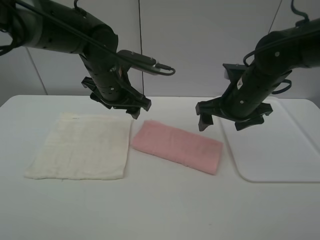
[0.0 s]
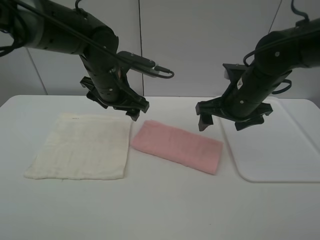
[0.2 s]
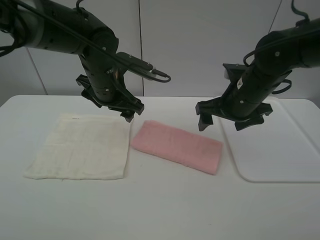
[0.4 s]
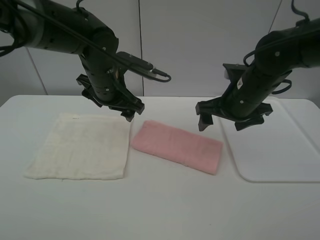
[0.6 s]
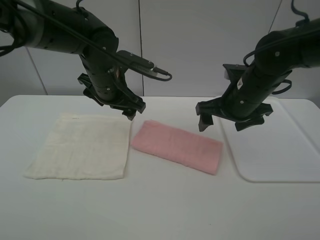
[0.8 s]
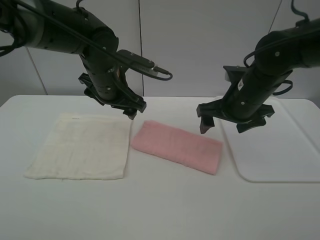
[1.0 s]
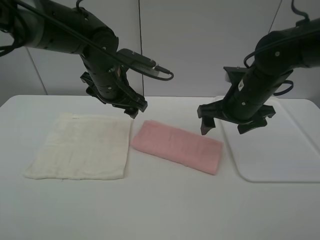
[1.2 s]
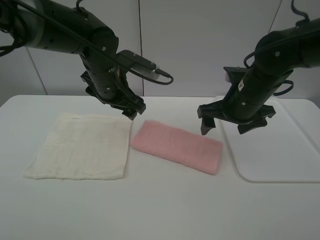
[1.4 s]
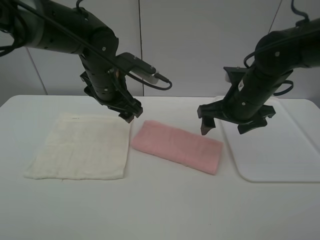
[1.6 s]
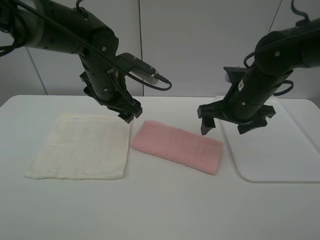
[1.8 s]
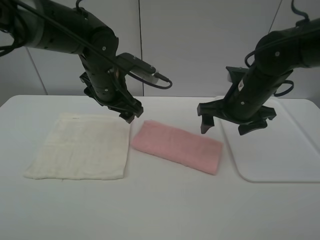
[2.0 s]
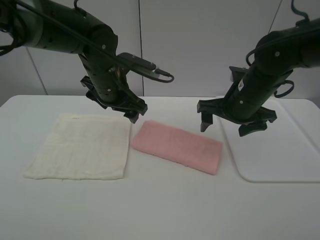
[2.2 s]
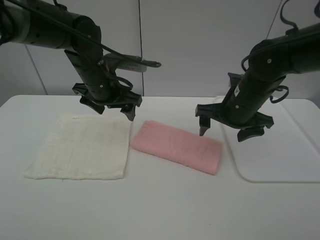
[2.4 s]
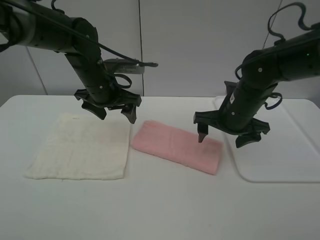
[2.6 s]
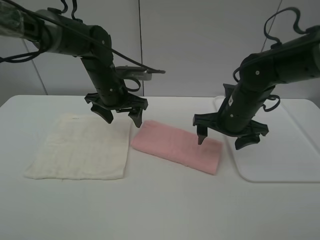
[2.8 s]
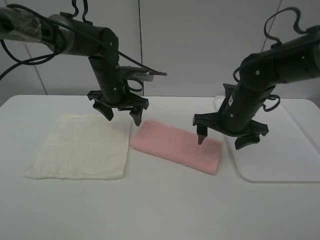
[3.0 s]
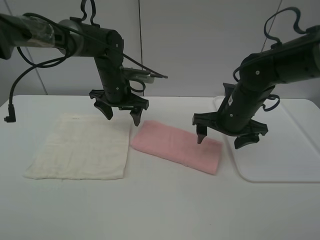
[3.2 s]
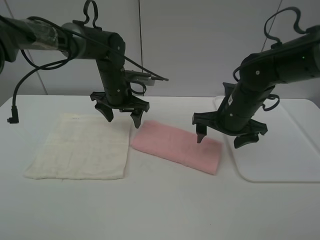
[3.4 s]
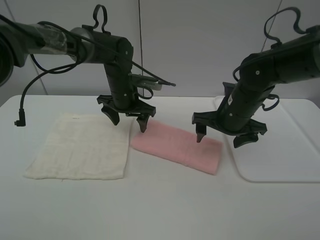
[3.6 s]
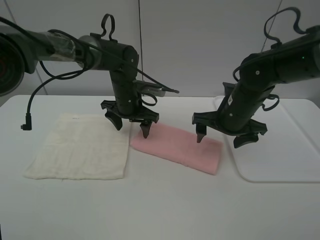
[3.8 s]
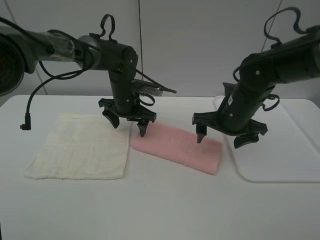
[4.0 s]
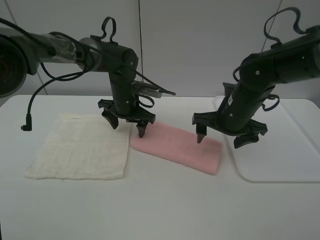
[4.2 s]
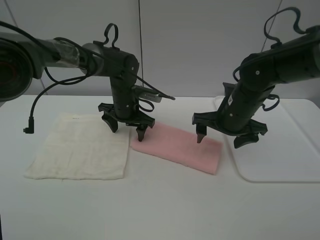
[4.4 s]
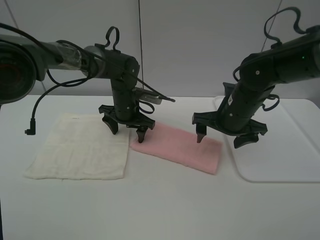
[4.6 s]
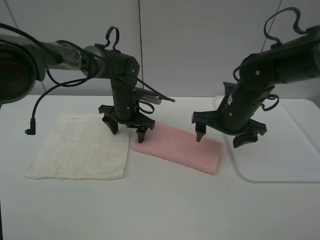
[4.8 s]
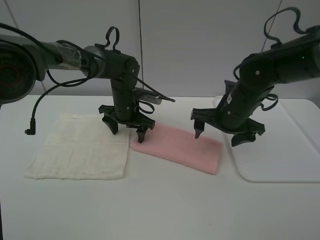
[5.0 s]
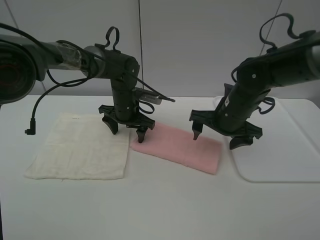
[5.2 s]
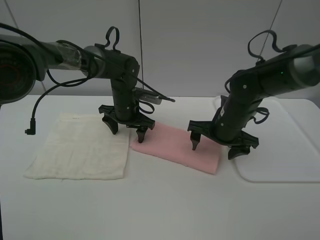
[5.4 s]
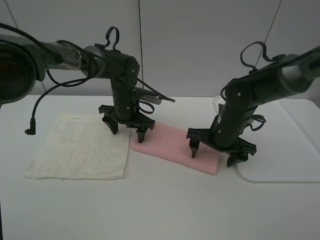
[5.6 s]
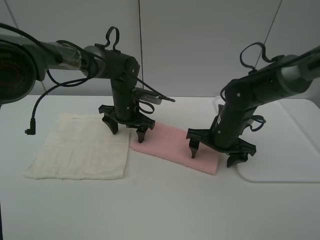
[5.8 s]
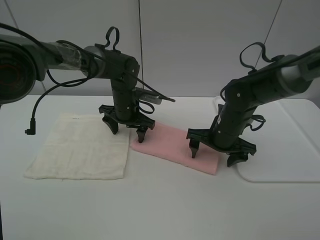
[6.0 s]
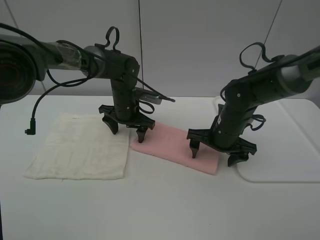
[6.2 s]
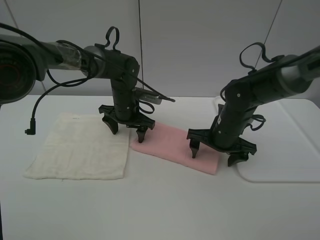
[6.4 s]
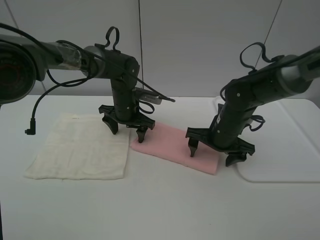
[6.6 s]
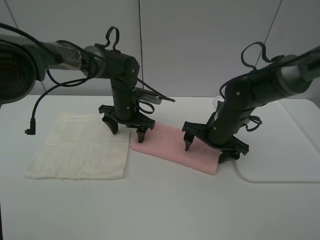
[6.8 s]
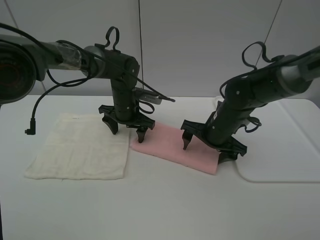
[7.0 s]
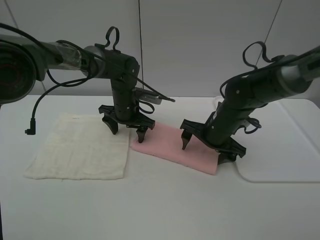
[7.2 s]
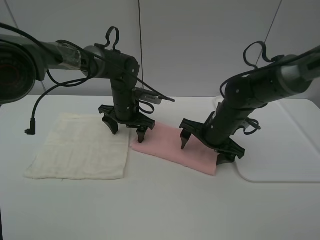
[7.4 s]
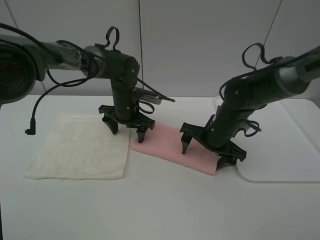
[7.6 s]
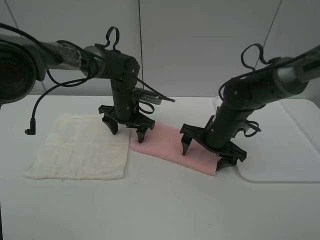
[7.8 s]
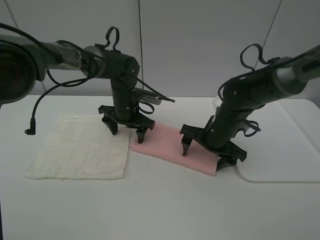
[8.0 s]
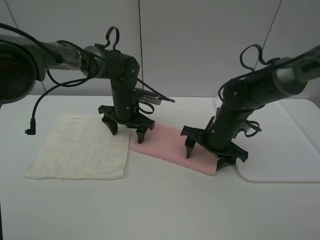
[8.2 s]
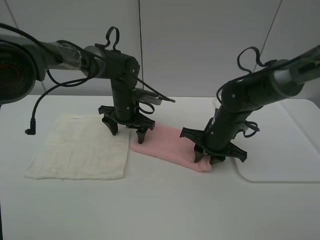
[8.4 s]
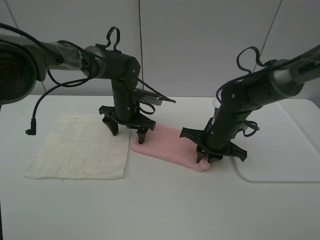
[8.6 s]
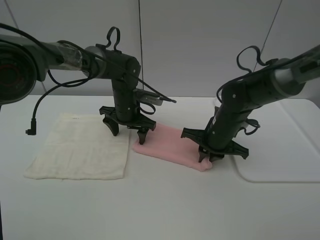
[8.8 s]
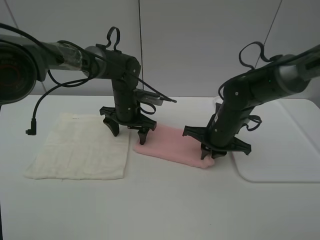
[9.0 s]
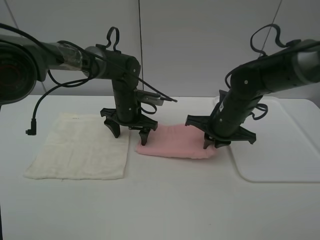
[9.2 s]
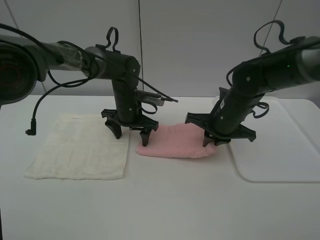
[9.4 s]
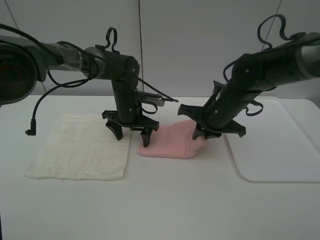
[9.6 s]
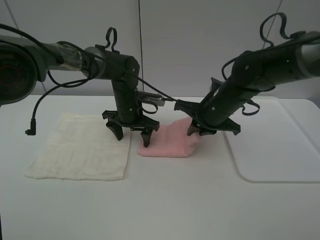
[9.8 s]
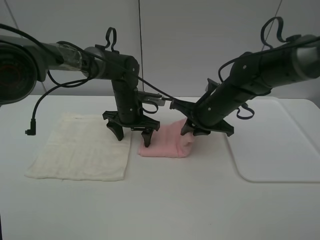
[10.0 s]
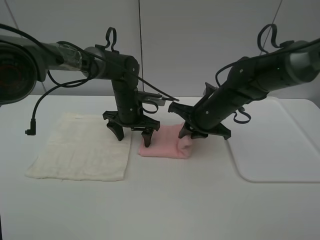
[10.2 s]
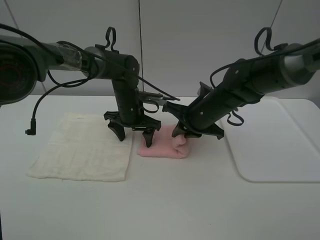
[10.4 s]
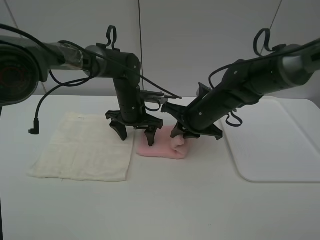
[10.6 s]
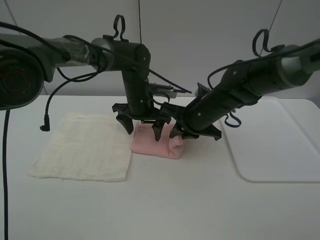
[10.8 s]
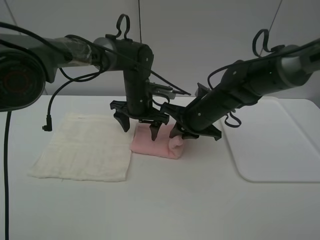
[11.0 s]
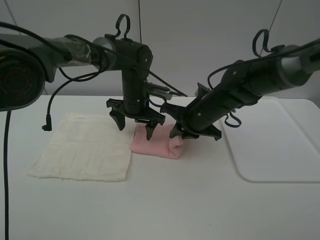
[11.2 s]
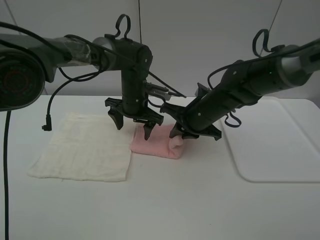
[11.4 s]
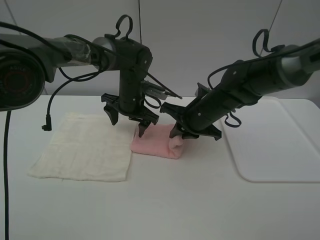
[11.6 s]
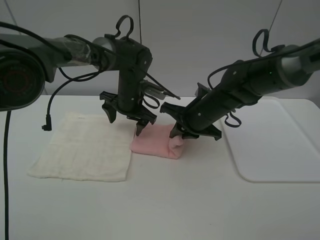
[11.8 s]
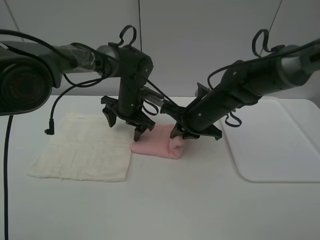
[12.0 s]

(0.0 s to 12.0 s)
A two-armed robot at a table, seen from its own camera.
Task of the whole recording: fold one of the towels by two grippers and place it on the tray,then fold another towel by two grippers and place it on the folded towel.
Step, 0.0 s - 4.8 s: Press the pink towel with the left gripper.
Step, 5.0 s - 8.8 s: Grasp the pink towel with the right gripper.
0.0 s - 1.6 s: There are only small adjustments of the grippers.
1.6 s - 3.0 s: The left gripper moves forward, some 5 cm.
3.0 s - 4.4 s: The left gripper goes approximately 5 cm downward.
4.4 s - 6.0 s: The right gripper goes about 5 cm downward.
6.0 s - 7.6 s: The grippers stay close to where they were, moving slightly.
7.6 s - 9.0 s: The right gripper closes its fingers.
9.0 s - 10.4 s: The right gripper ends up roughly 5 cm from where it was.
10.4 s - 12.0 s: The grippers stay close to where they were, moving slightly.

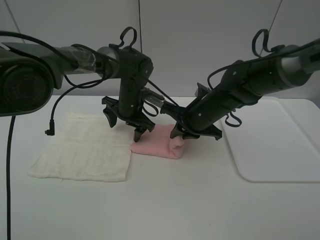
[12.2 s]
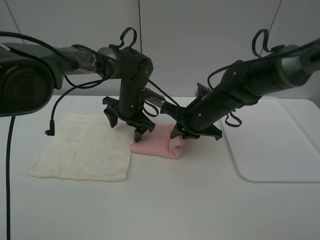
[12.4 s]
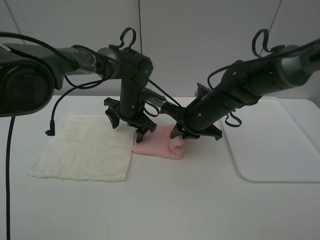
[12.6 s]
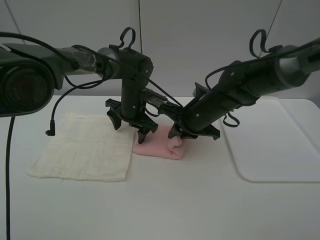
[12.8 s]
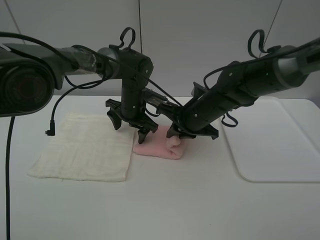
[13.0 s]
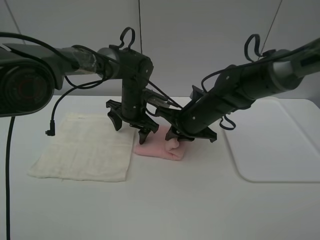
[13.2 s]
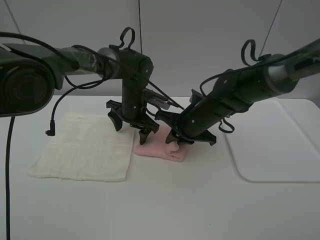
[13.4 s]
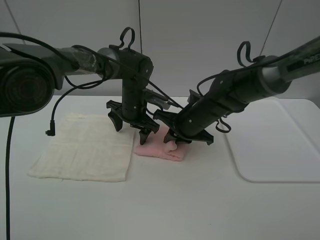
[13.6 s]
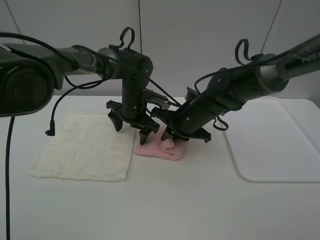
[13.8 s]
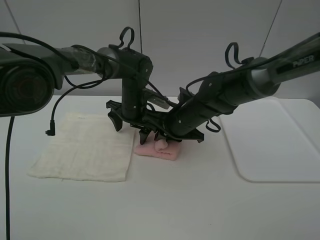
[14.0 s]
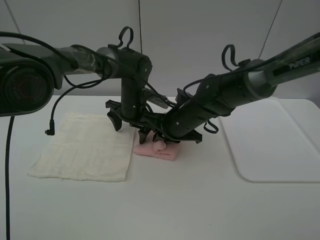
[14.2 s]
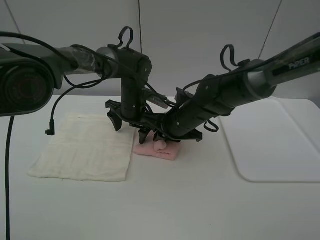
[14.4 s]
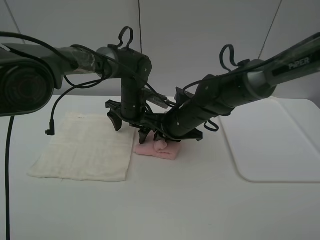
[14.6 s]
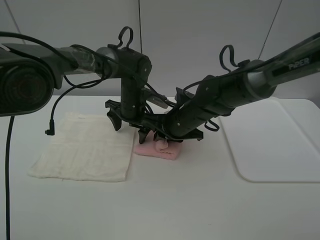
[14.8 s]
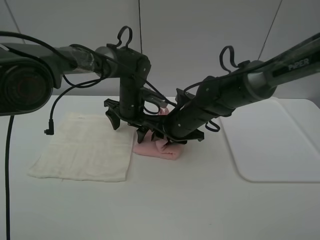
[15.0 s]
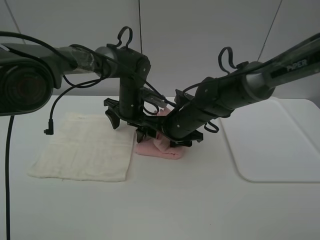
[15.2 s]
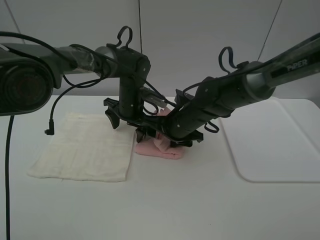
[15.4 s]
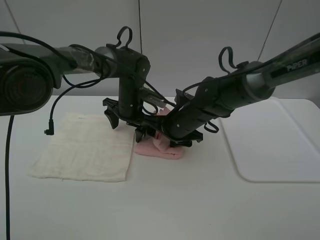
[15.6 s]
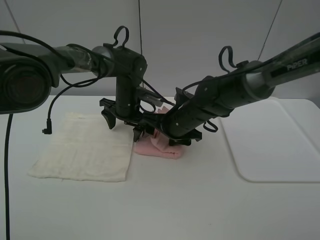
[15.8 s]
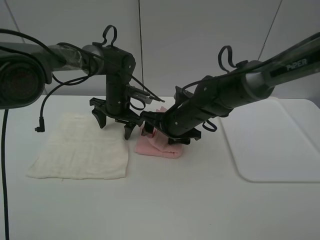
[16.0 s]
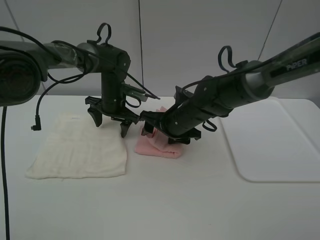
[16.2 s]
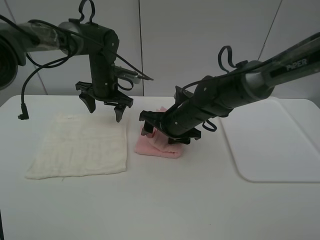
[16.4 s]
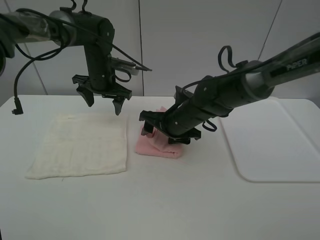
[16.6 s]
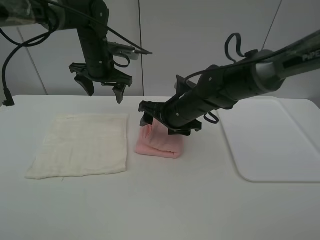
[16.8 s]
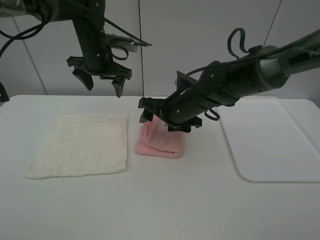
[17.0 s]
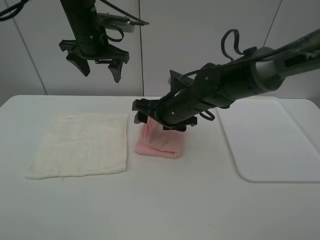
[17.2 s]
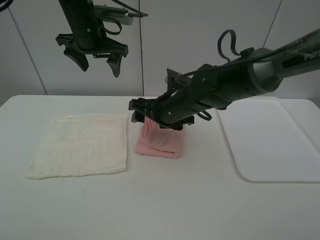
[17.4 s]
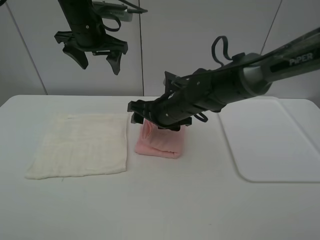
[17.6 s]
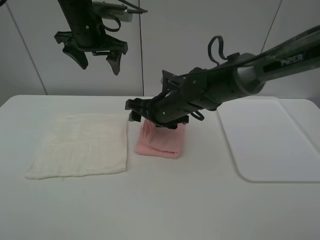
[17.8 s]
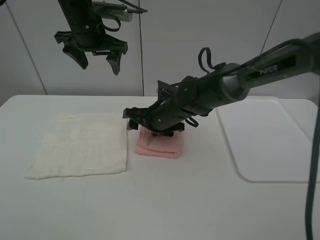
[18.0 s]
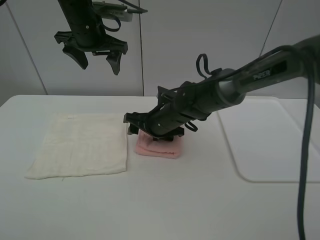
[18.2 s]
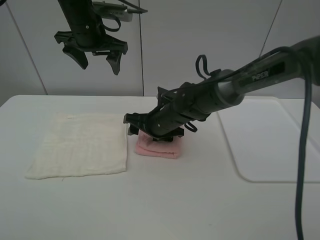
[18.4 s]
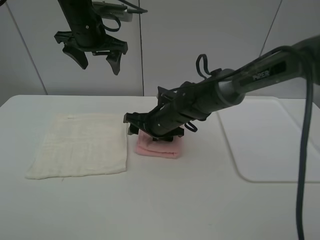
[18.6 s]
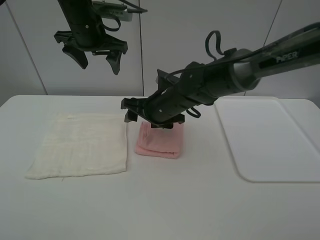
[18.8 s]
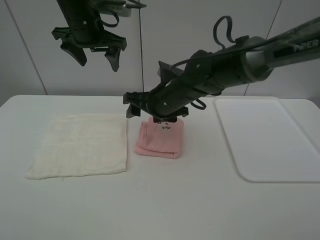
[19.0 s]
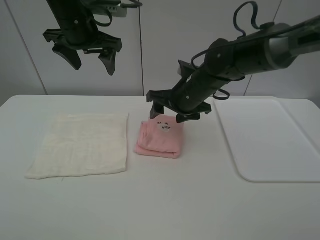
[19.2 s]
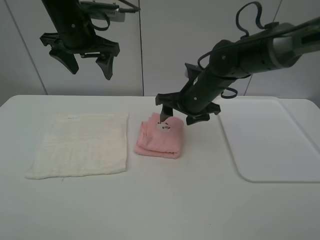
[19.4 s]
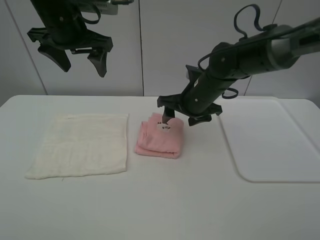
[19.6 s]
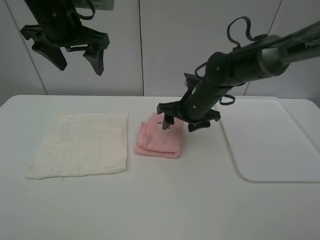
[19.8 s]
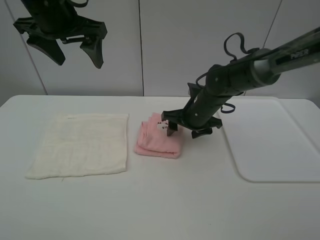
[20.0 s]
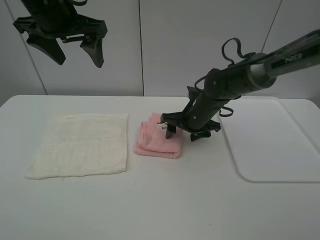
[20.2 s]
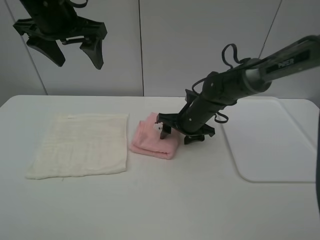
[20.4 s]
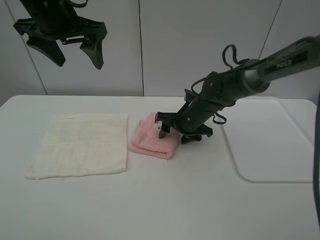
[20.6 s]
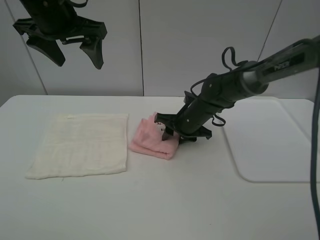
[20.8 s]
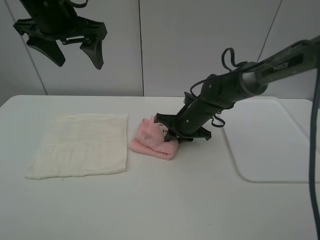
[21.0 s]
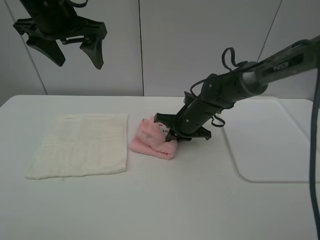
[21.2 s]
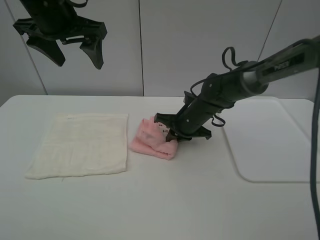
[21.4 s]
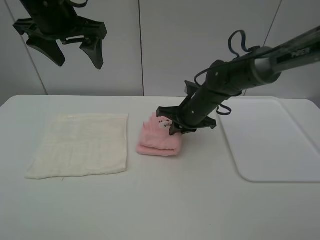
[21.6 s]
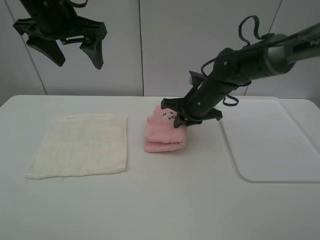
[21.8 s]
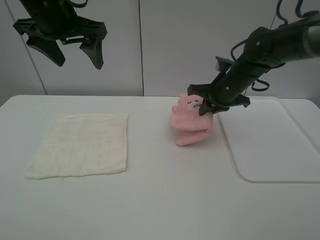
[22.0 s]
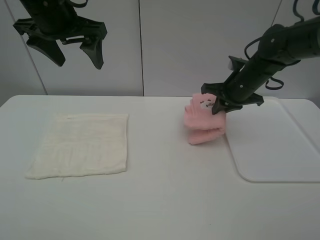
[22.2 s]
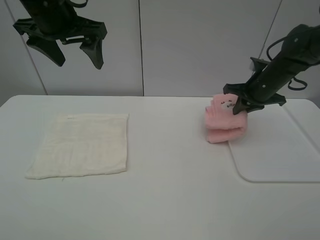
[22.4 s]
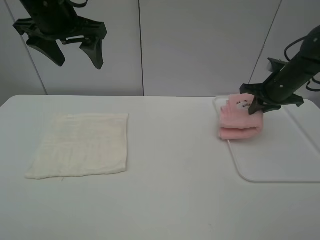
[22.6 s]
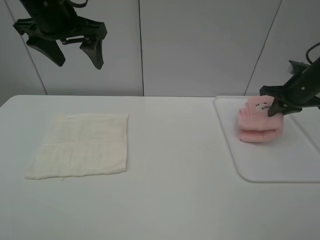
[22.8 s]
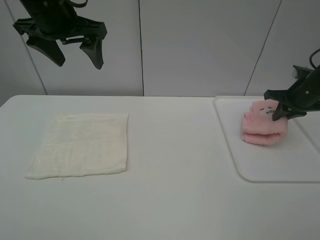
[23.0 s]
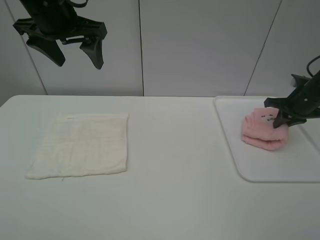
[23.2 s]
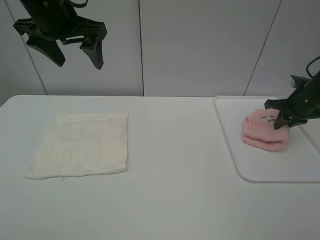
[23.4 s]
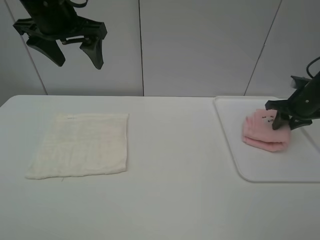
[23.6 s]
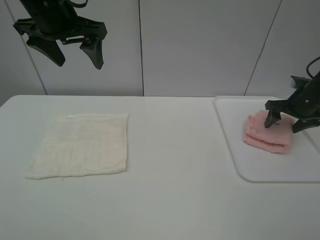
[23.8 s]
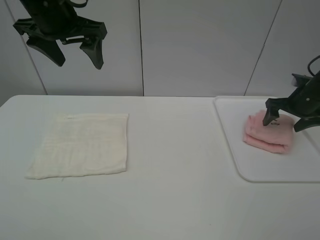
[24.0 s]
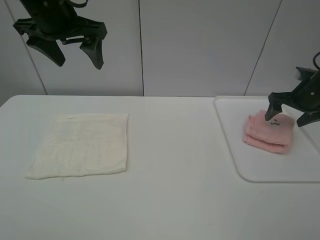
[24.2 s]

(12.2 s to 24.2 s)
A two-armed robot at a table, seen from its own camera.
Task of the whole recording: fold one of the towels by two grippers and place it on the tray,then fold another towel by two grippers and place it on the folded towel.
Step, 12.2 s - 17.0 s: Fold the pink towel from right to left with right gripper.
Step, 17.2 s - 21.0 s: Grasp the pink towel with the right gripper.
12.2 s - 13.8 s: There are only small adjustments of the grippers.
13.8 s - 15.2 s: The right gripper opens its fingers.
15.2 s - 16.6 s: The left gripper moves upward and to the left, some 10 cm.
16.6 s - 18.2 s: The left gripper moves upward, roughly 10 cm.
18.2 s - 19.8 s: The left gripper shifts some 5 cm backward. The right gripper shifts roughly 5 cm to the right.
19.8 s - 21.2 s: The right gripper shifts some 5 cm downward, and closes up.
21.2 s - 22.6 s: The right gripper heads to the right and upward, covering about 25 cm.
22.6 s - 24.2 s: The right gripper goes some 5 cm to the right, and opens its fingers.
